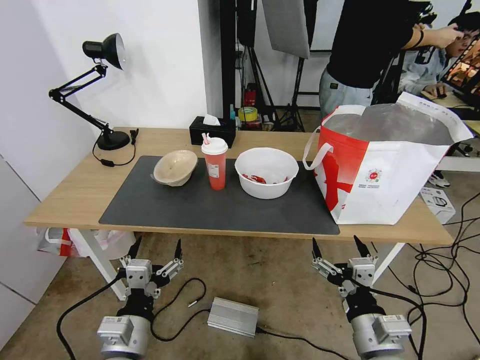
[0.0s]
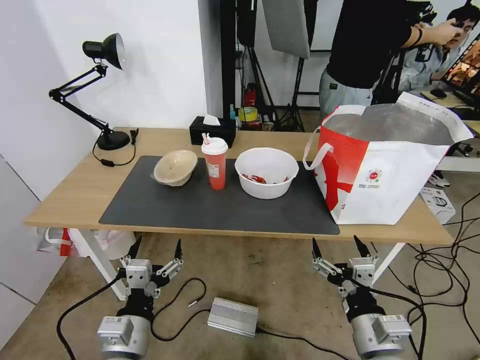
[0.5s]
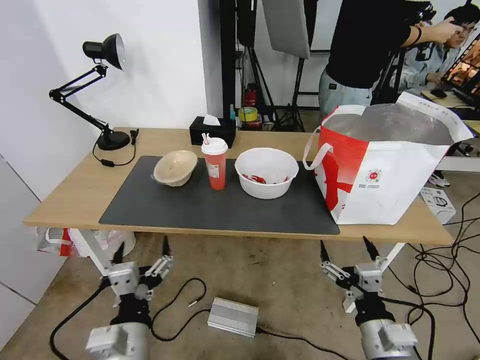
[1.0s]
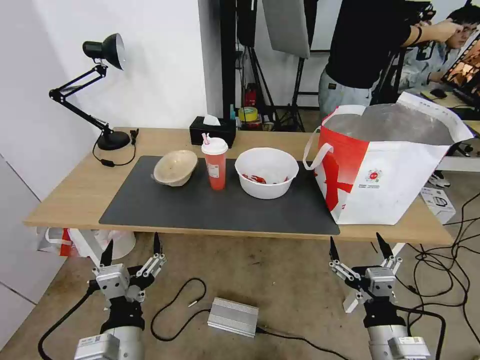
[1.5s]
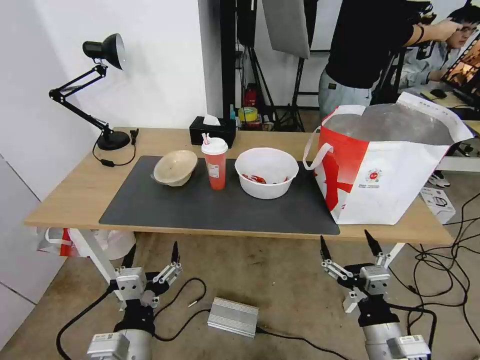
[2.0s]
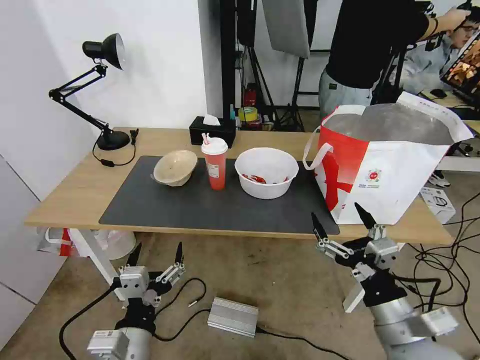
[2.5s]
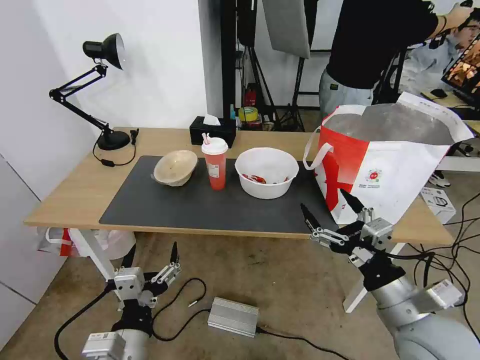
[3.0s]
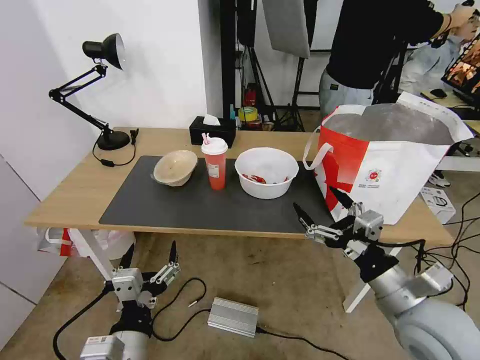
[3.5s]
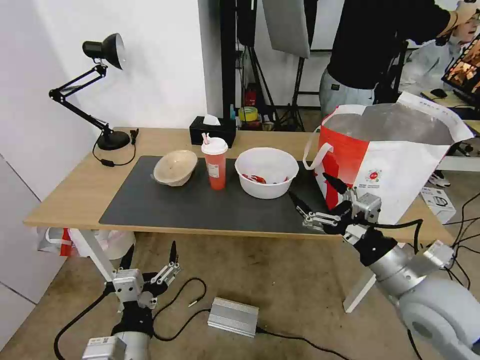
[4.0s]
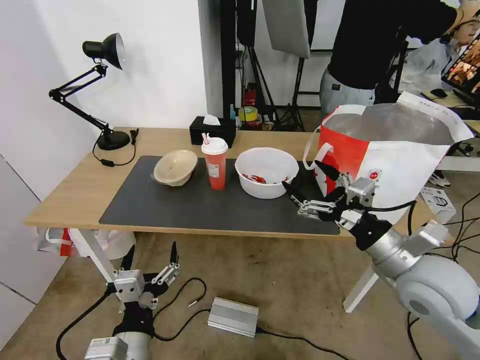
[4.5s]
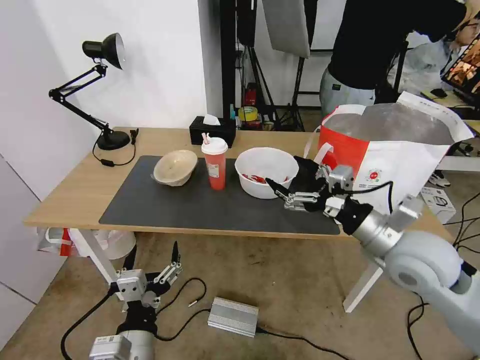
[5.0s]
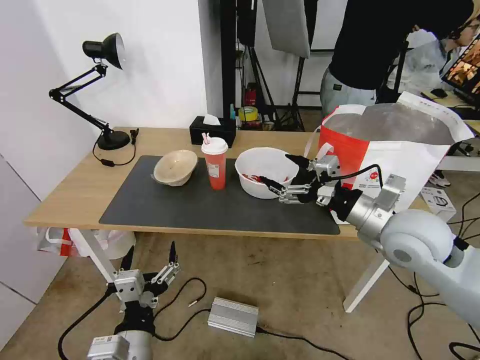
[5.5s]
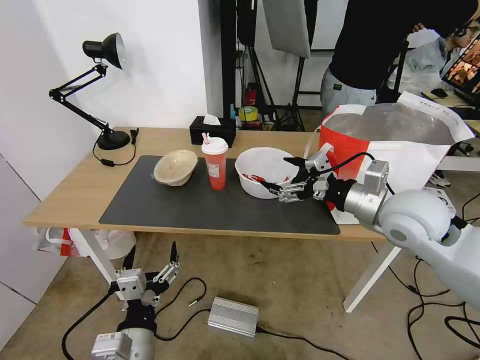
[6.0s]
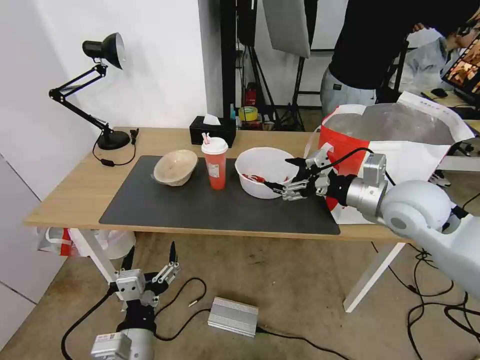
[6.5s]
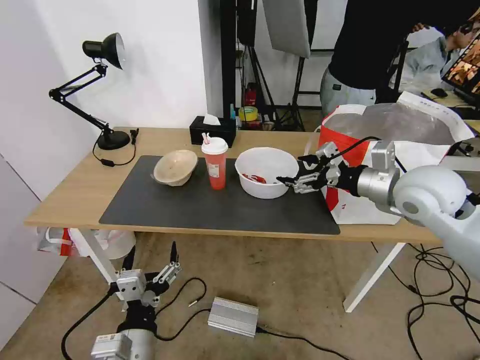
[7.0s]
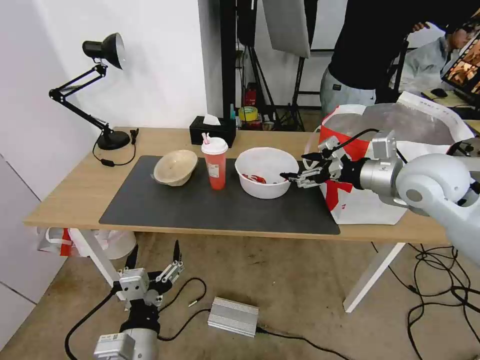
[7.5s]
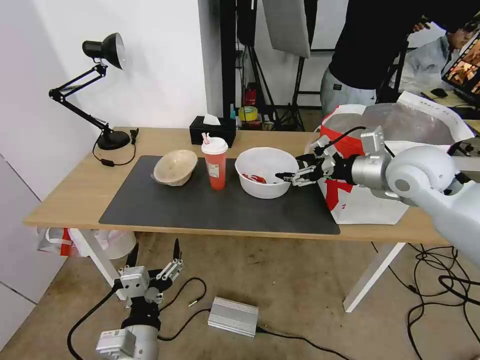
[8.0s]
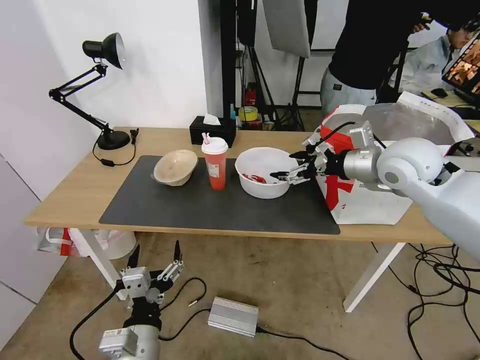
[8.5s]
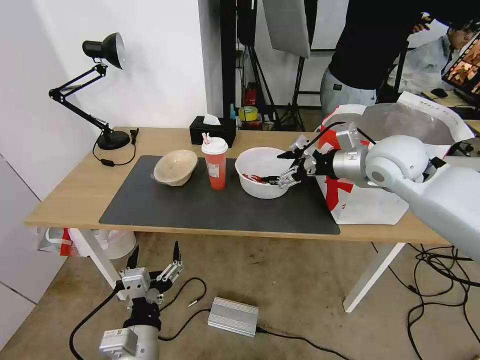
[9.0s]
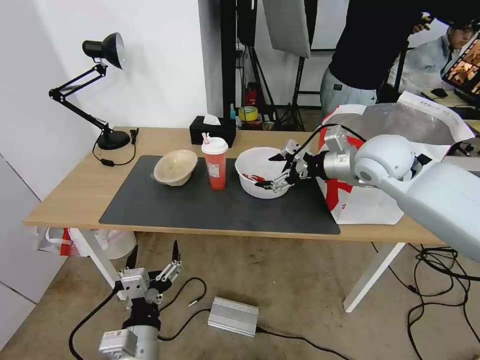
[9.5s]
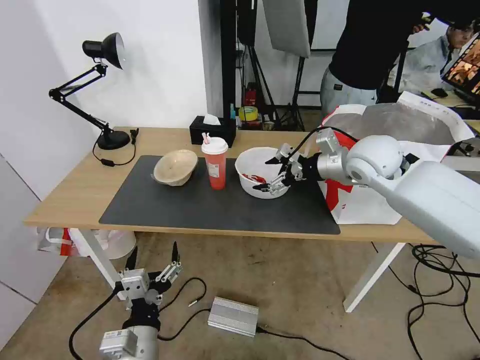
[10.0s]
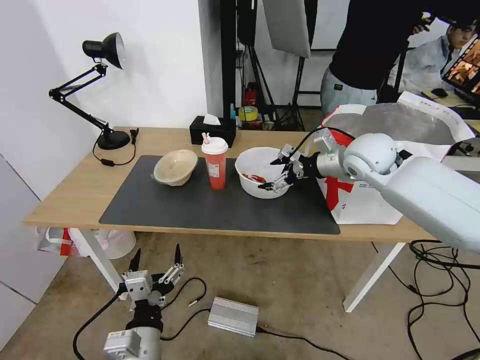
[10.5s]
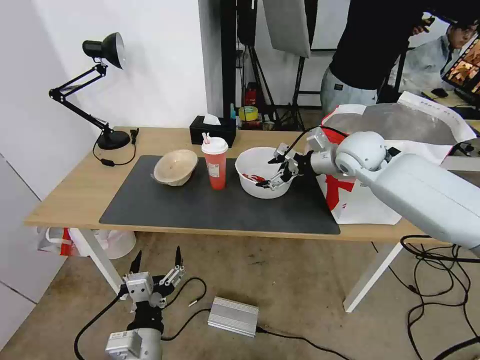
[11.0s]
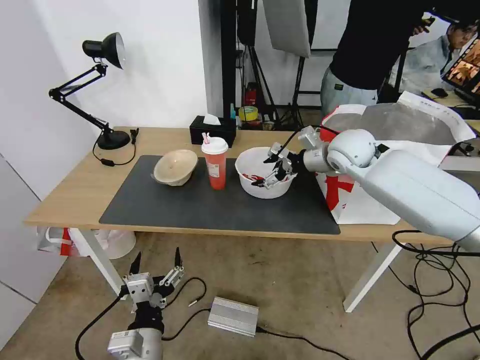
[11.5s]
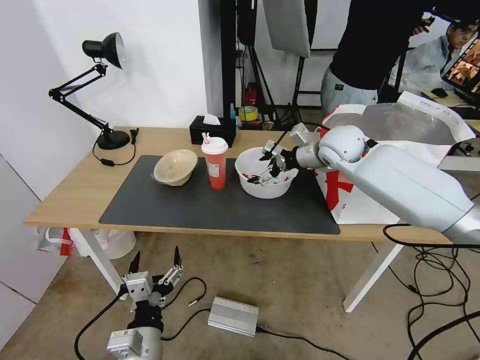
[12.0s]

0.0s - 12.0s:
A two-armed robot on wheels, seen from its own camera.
Task of the whole recording: Pick up the trash from the table and place it into the takeout bag.
2.0s - 4.0s: The right gripper goes about 15 cm upward and forward.
4.0s - 6.0s: The right gripper moves forward and upward, some 15 cm.
6.0s - 8.0s: The right gripper goes approximately 5 cm forward.
8.0s - 10.0s: The right gripper moves forward, some 5 cm.
10.0s - 12.0s: The right gripper is displaced forward by some 10 cm.

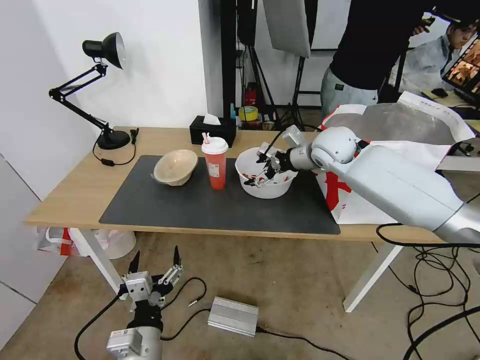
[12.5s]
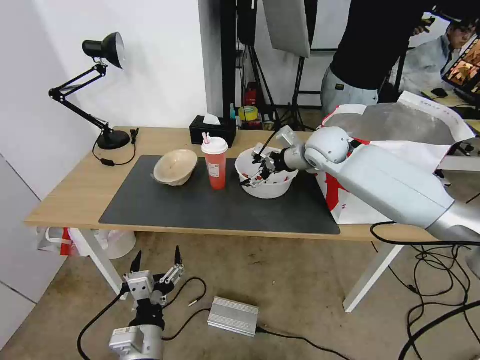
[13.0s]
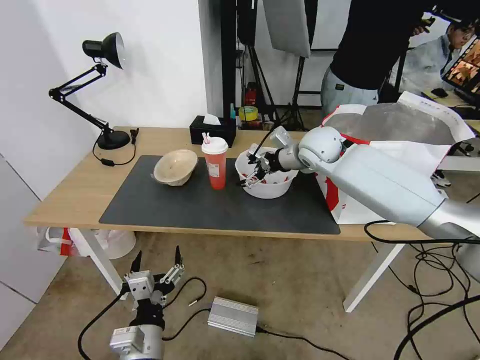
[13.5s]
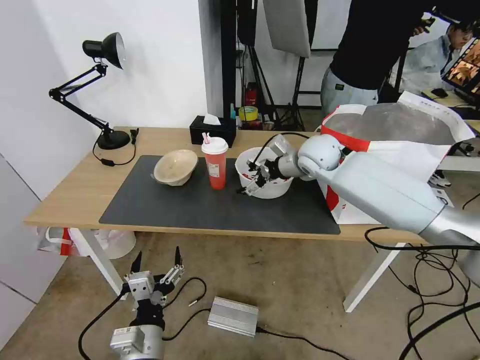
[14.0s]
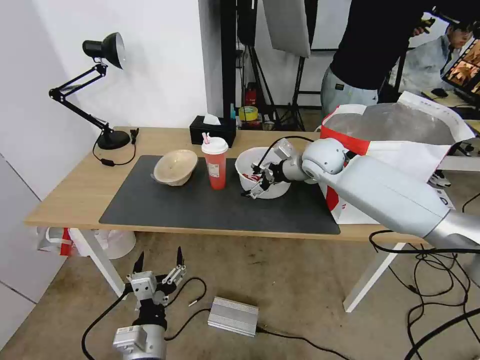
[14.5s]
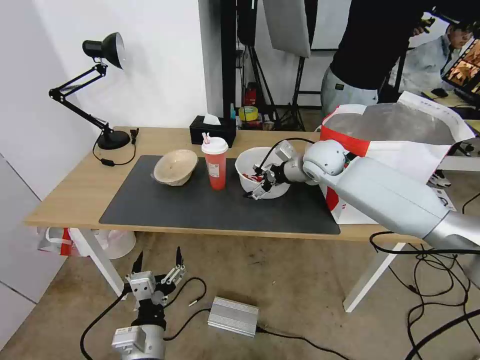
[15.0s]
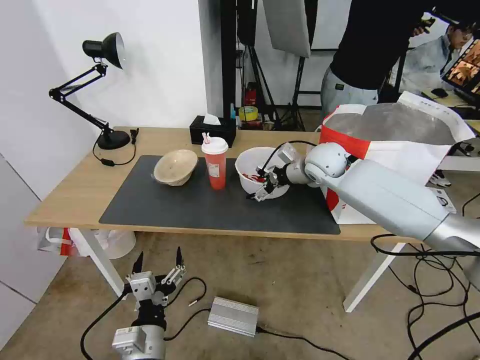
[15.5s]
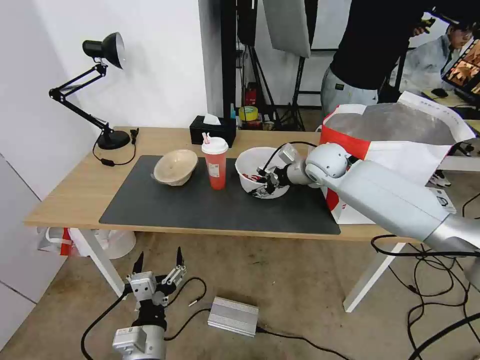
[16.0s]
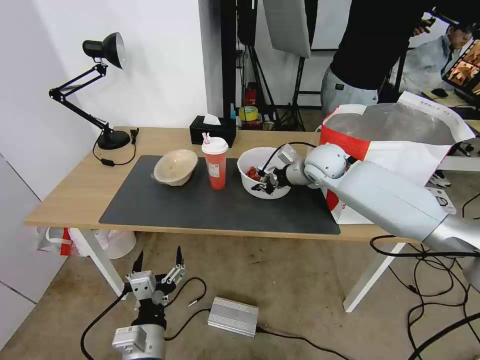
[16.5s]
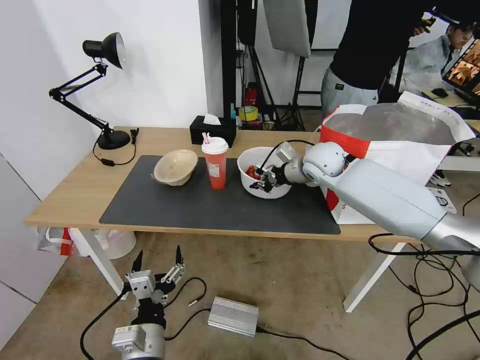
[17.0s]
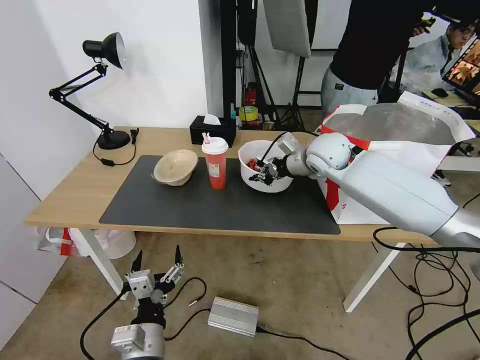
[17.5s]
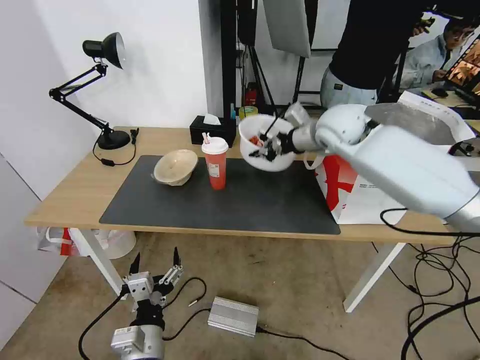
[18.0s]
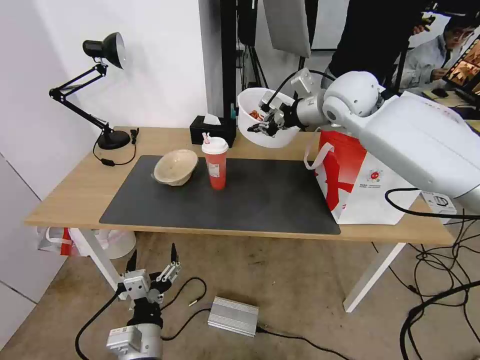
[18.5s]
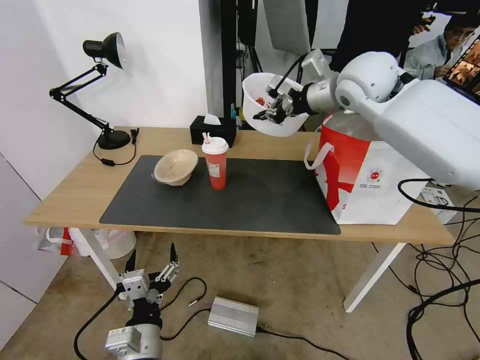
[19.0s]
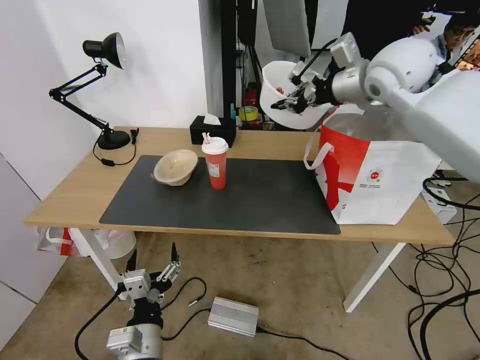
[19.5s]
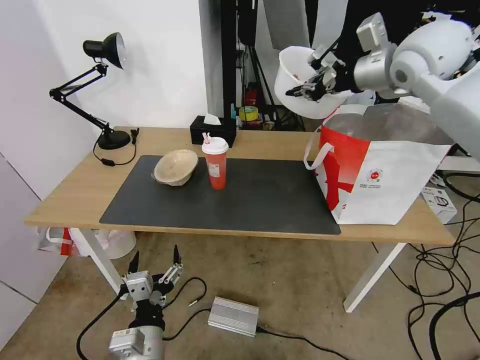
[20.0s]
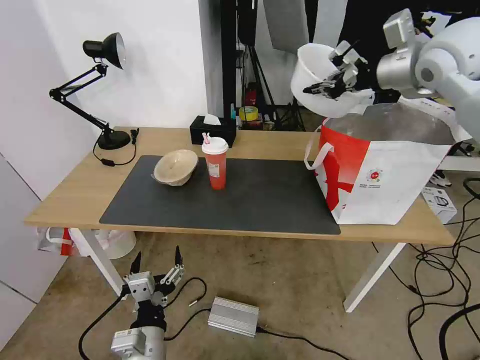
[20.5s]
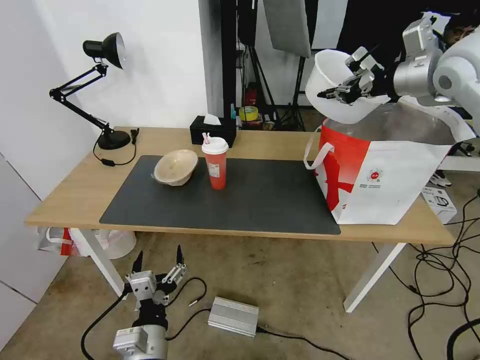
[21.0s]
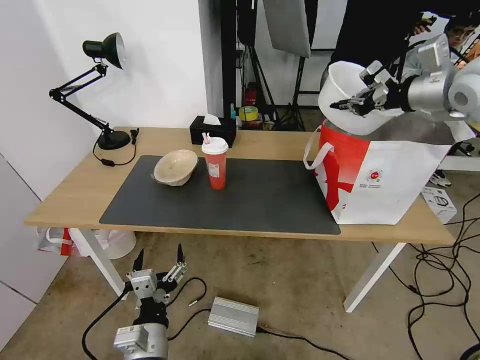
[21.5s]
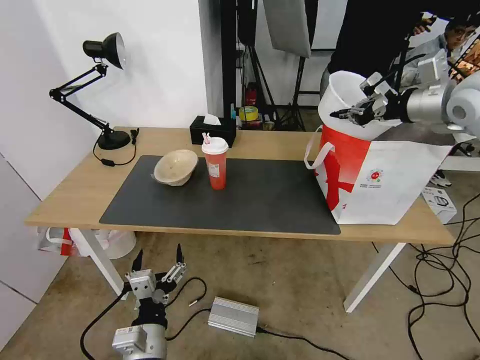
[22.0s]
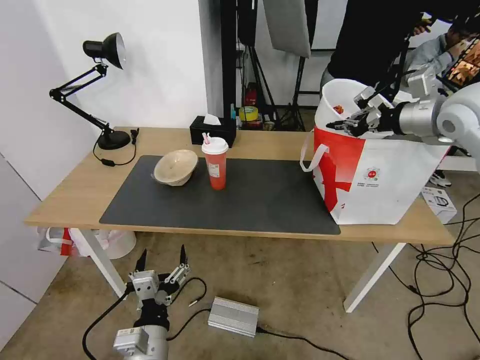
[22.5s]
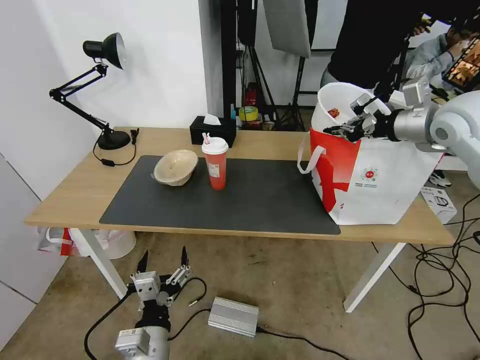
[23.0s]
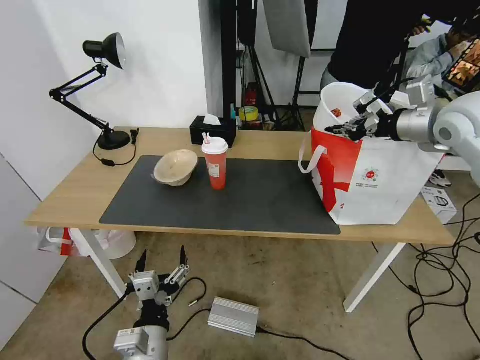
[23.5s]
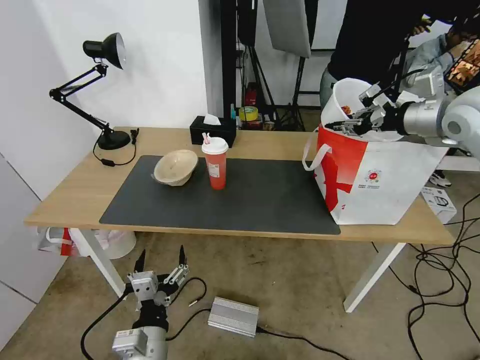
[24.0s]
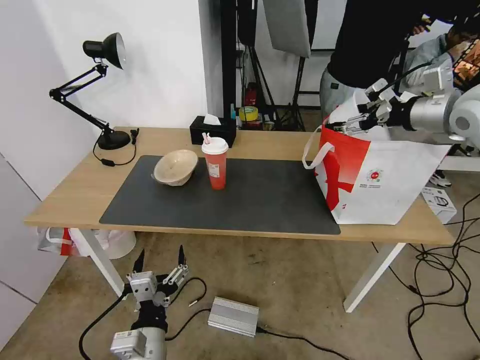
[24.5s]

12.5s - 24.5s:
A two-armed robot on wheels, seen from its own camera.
Task of the whole recording: Pick up the trash from the table and place it into the takeout bag.
12.5s - 14.5s: The grippers stay close to where they were, moving slightly.
14.5s - 16.5s: The right gripper closes up.
16.5s - 18.5s: The right gripper is displaced upward by some 15 cm.
18.5s - 20.5s: The right gripper is displaced to the right and upward by some 15 cm.
20.5s - 22.5s: The right gripper goes about 10 cm downward and to the right.
22.5s - 24.5s: The right gripper opens its fingers.

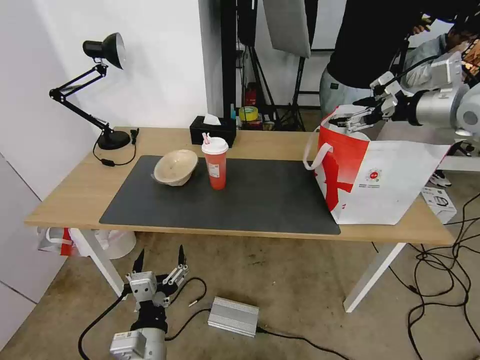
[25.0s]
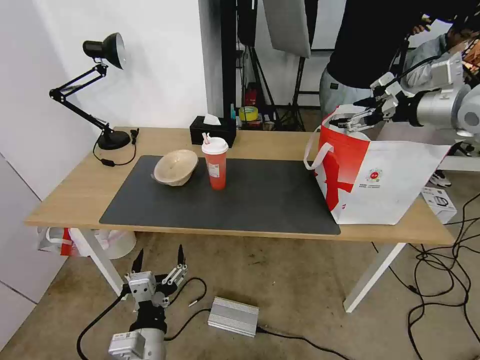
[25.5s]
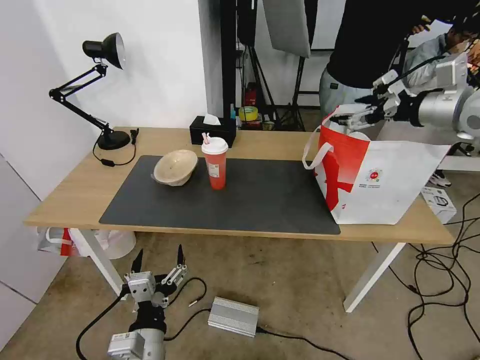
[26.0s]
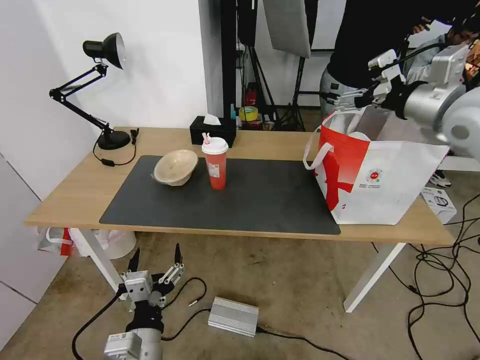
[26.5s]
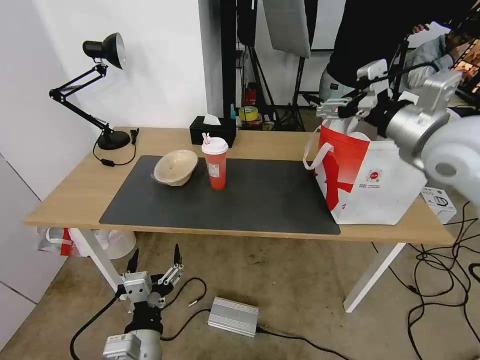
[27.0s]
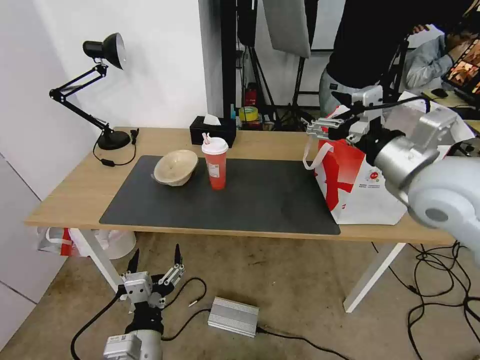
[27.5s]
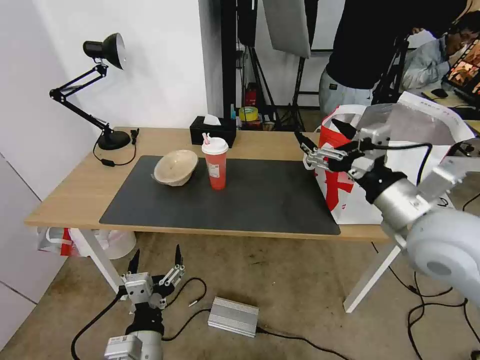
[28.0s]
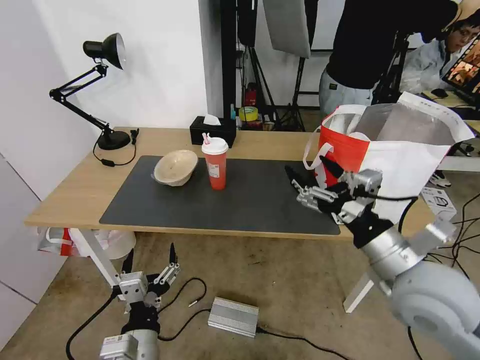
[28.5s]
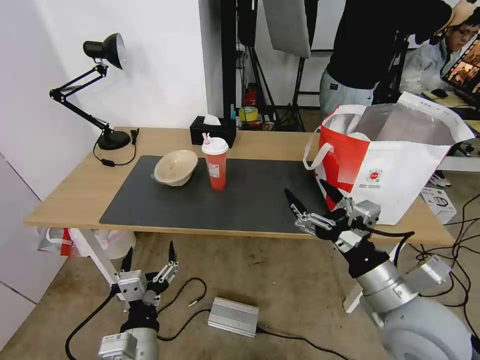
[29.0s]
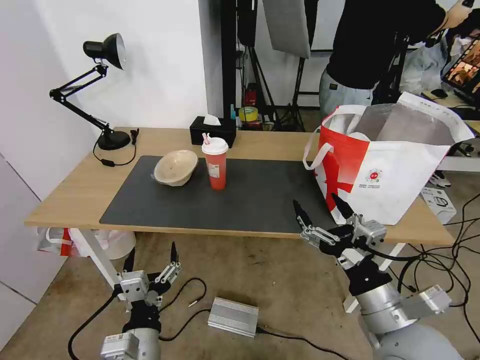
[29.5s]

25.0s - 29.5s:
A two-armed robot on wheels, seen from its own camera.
Task of the whole recording: Pick up the trash from the table and place it into the takeout bag.
25.0s - 27.0s: The right gripper goes some 10 cm to the left and backward.
27.0s - 29.5s: The right gripper is displaced backward and downward by some 30 cm.
